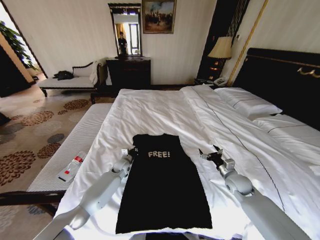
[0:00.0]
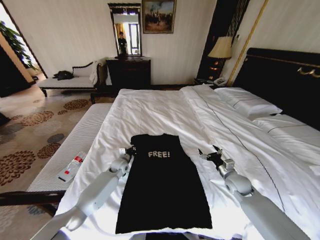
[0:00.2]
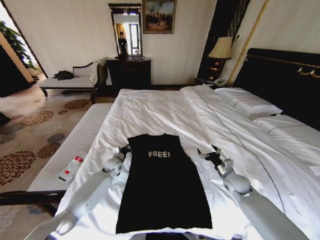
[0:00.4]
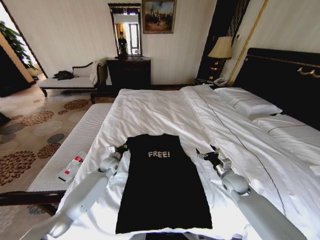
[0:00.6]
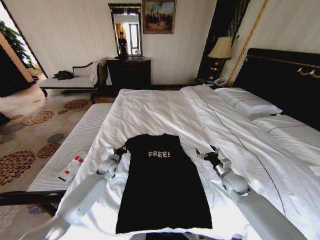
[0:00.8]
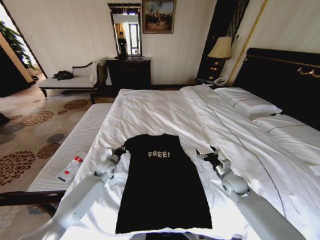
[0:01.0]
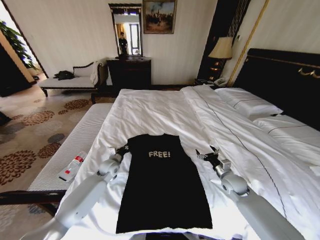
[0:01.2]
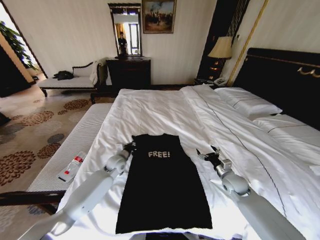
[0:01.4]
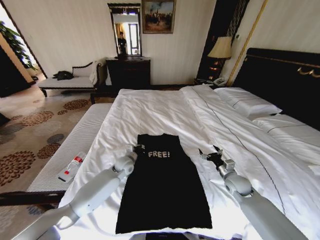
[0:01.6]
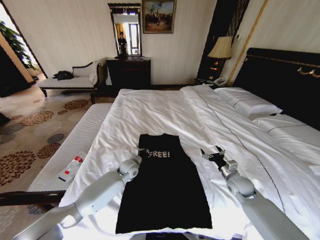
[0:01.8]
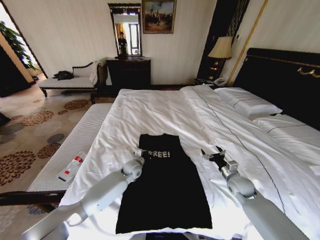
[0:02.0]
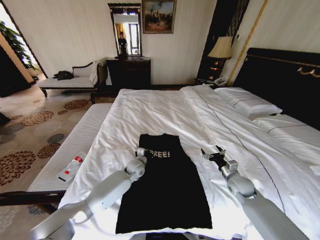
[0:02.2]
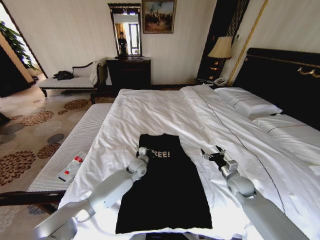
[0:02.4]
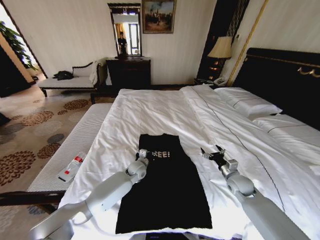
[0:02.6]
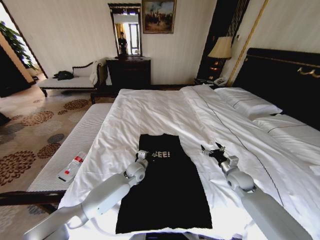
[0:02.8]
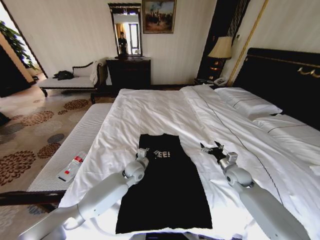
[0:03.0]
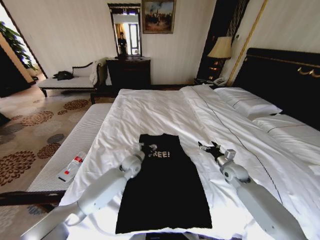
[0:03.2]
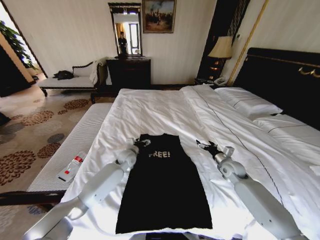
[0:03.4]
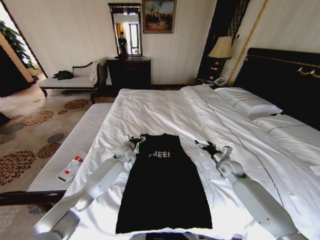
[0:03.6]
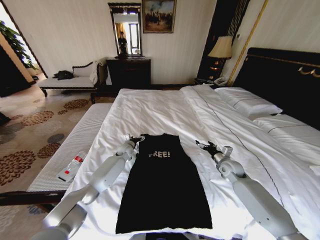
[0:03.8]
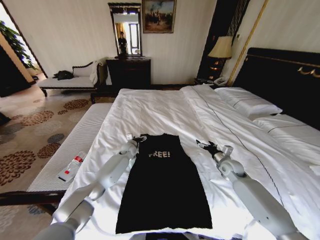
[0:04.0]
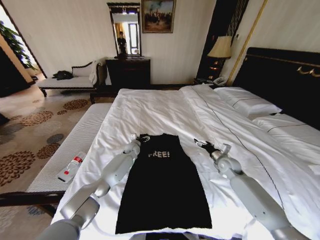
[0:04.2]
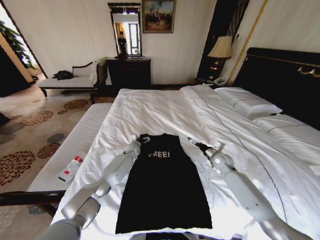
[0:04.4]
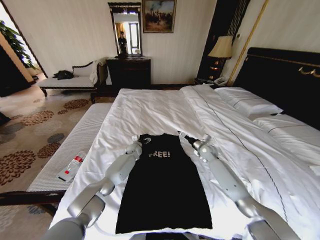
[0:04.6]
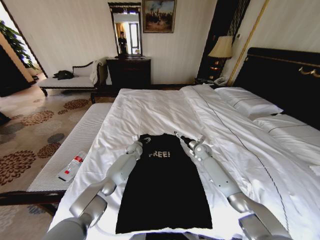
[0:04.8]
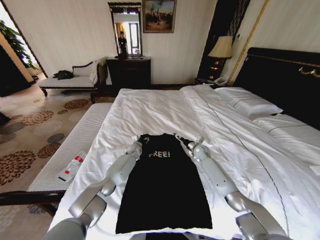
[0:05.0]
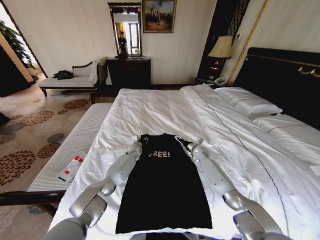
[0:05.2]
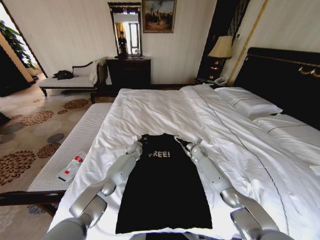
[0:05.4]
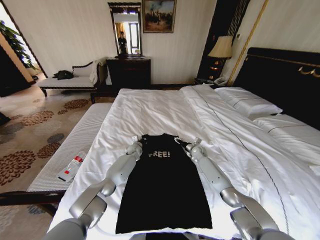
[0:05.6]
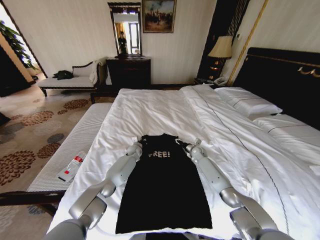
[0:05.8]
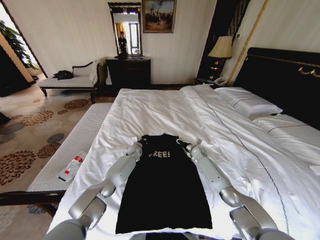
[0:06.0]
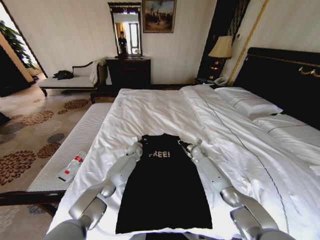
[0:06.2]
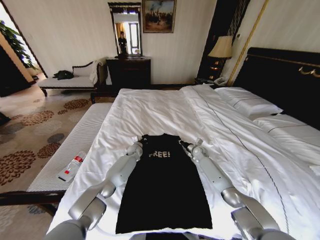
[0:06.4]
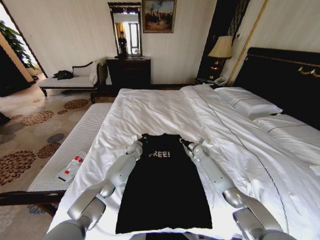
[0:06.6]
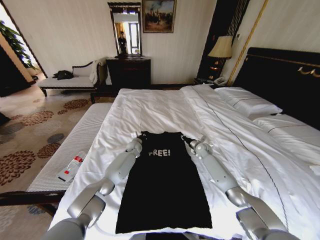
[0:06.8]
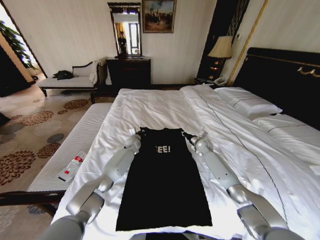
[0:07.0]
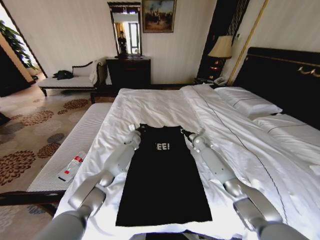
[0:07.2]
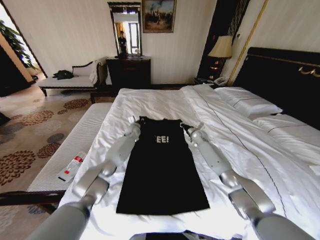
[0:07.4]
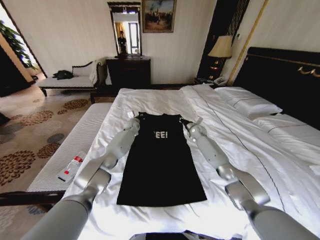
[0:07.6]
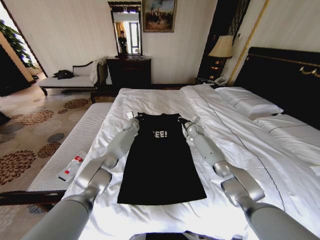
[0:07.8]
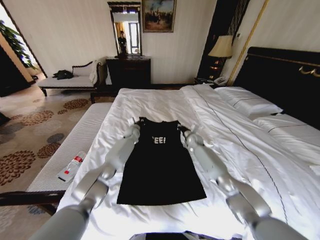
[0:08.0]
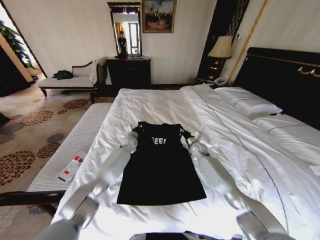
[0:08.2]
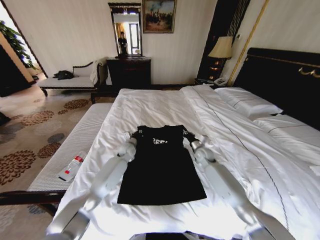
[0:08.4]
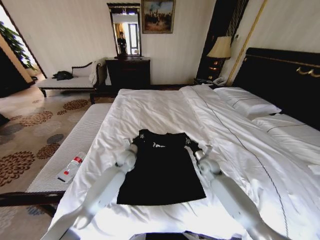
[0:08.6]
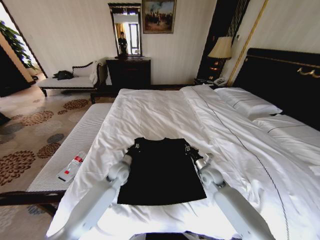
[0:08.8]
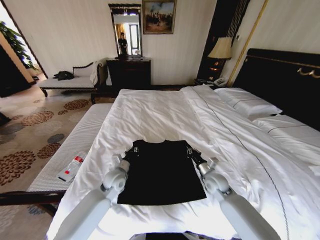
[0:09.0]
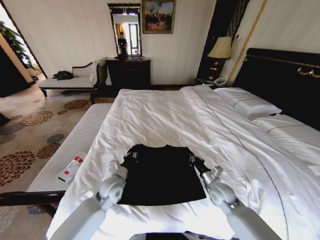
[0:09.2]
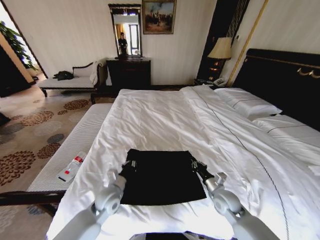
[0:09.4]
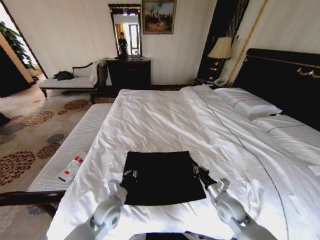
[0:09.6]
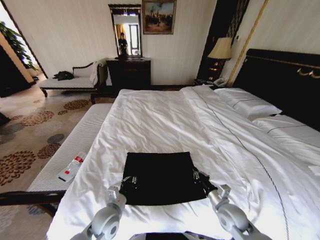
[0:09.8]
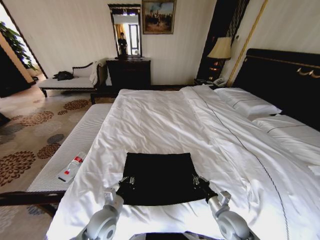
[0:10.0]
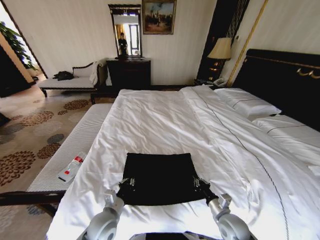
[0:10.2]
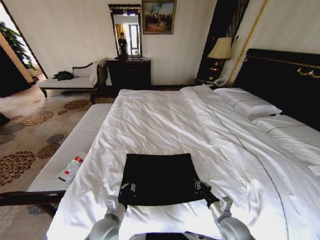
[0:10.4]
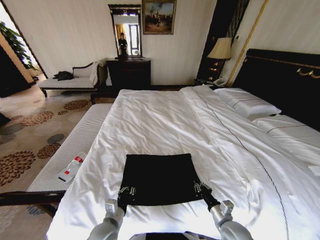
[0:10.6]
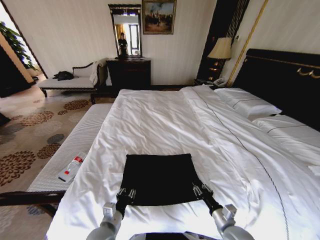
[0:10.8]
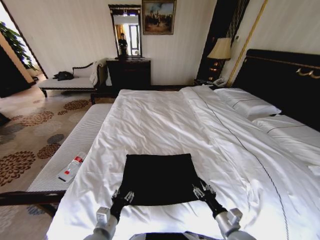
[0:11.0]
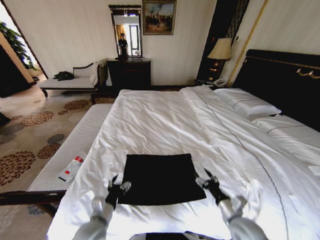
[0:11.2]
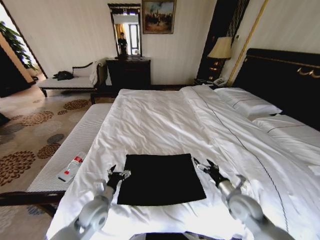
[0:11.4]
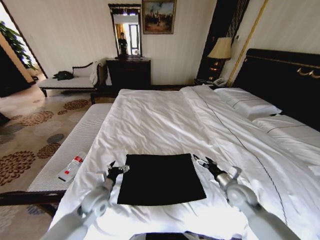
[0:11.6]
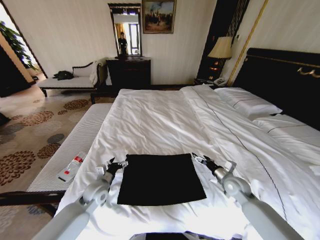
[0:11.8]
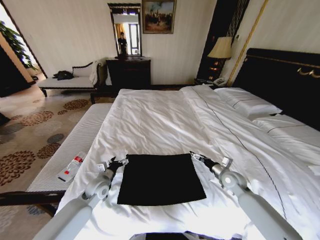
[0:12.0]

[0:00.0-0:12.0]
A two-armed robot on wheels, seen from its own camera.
Task of the whole recording: Fold the clothes on the bed.
0:00.0 to 0:01.6: The left gripper goes about 5 cm upward, and travels to the left and back again, about 5 cm each way.
0:01.6 to 0:03.0: The left gripper goes some 5 cm to the right, and opens up.
0:03.0 to 0:04.4: The right gripper moves forward, approximately 10 cm; the left gripper travels forward by roughly 15 cm, and opens.
0:04.4 to 0:06.0: The left gripper closes its fingers; the right gripper travels forward, downward and to the left by some 10 cm, and closes its fingers.
0:06.0 to 0:07.6: The two grippers go approximately 15 cm upward and forward. The right gripper closes up.
0:07.6 to 0:09.0: Both grippers travel together backward, some 30 cm.
0:09.0 to 0:10.4: Both grippers travel together backward, some 15 cm.
0:10.4 to 0:12.0: The right gripper goes some 20 cm forward and to the right, and opens up. The left gripper is displaced forward and to the left by some 15 cm, and opens its fingers.

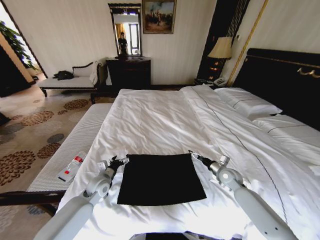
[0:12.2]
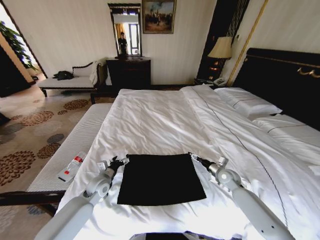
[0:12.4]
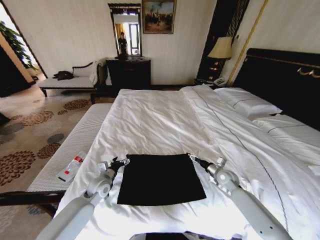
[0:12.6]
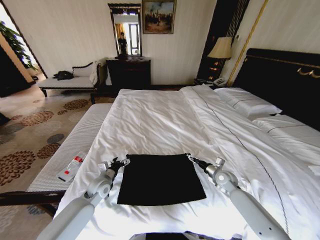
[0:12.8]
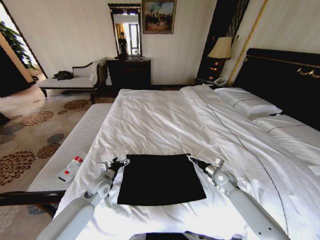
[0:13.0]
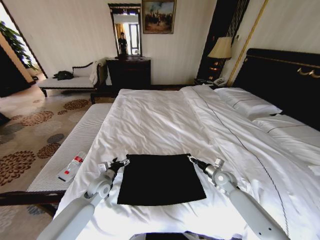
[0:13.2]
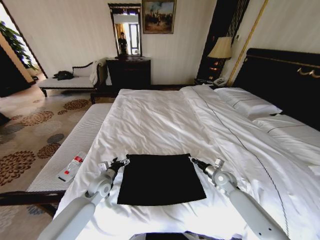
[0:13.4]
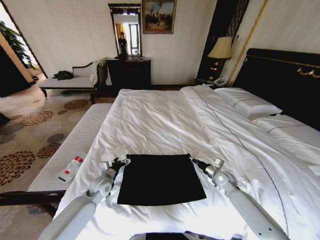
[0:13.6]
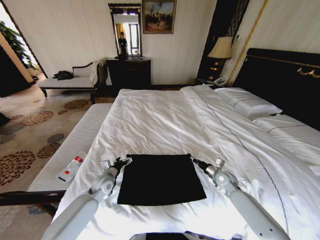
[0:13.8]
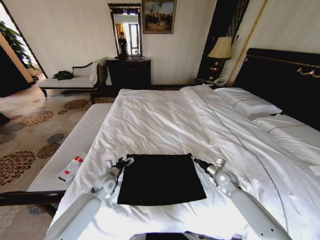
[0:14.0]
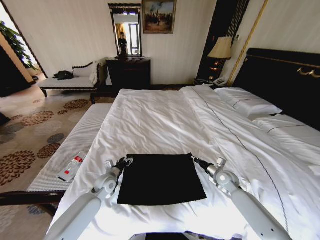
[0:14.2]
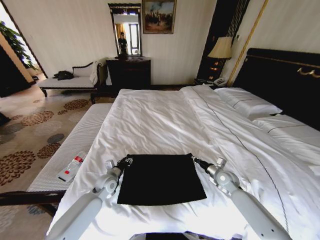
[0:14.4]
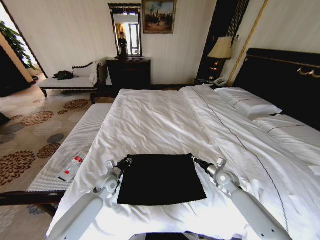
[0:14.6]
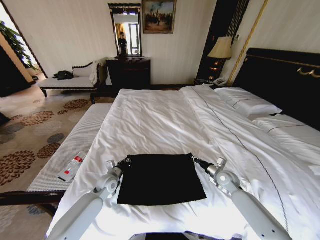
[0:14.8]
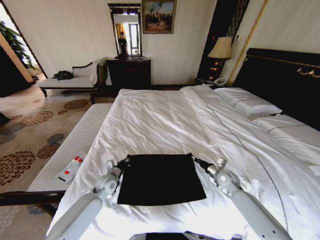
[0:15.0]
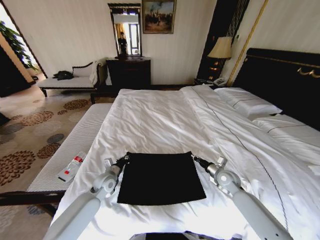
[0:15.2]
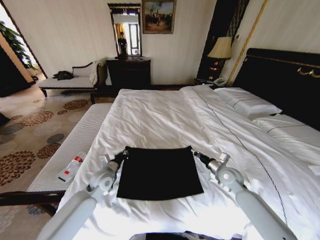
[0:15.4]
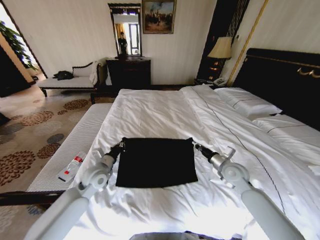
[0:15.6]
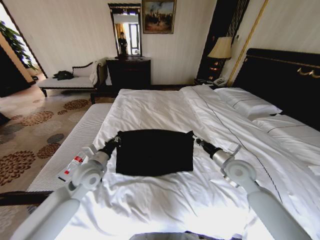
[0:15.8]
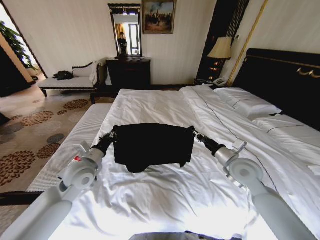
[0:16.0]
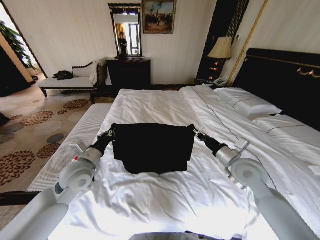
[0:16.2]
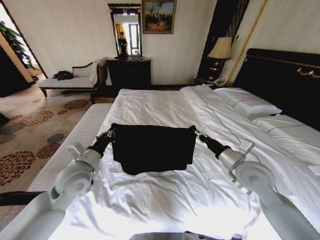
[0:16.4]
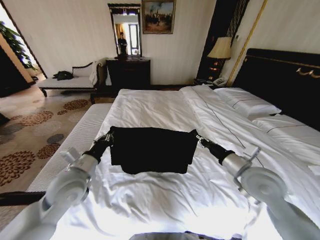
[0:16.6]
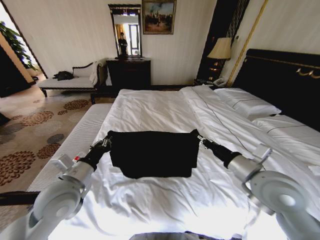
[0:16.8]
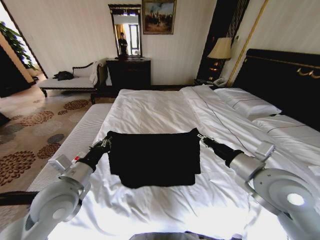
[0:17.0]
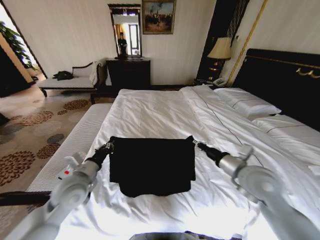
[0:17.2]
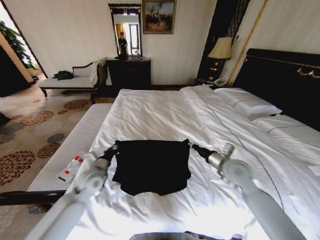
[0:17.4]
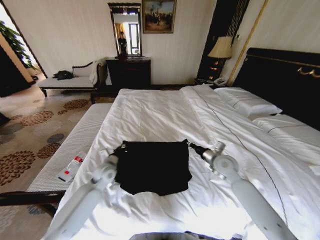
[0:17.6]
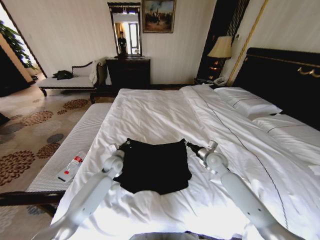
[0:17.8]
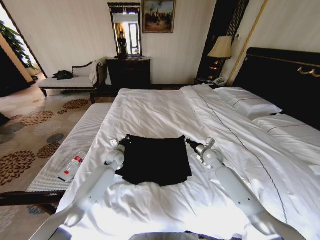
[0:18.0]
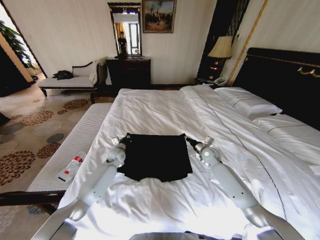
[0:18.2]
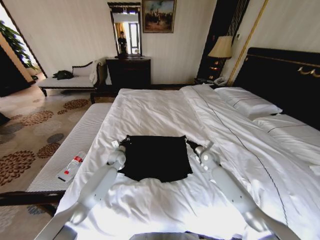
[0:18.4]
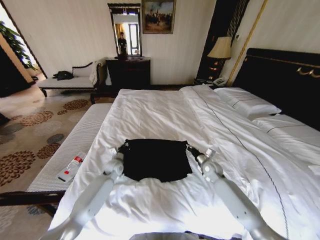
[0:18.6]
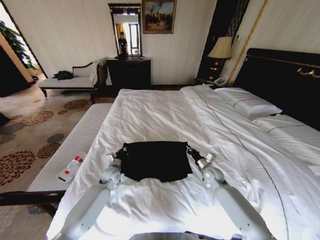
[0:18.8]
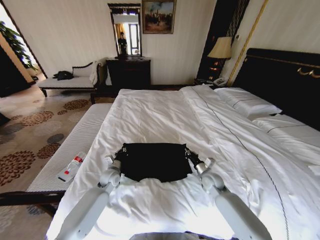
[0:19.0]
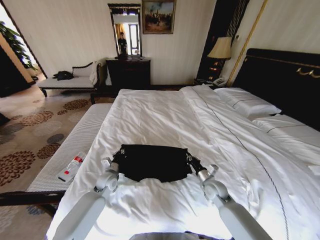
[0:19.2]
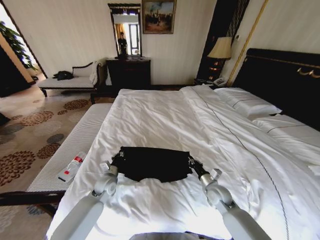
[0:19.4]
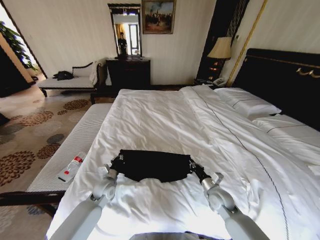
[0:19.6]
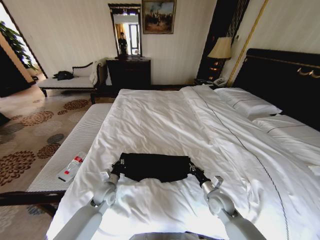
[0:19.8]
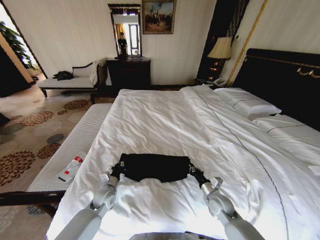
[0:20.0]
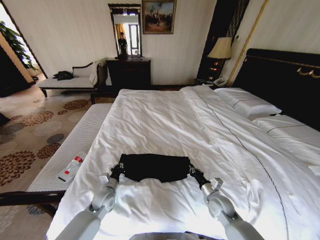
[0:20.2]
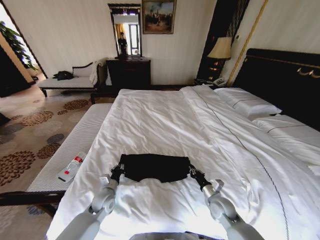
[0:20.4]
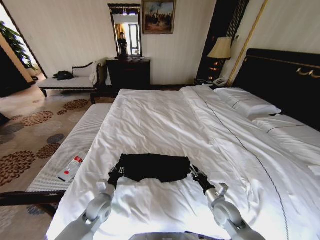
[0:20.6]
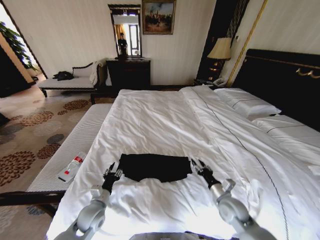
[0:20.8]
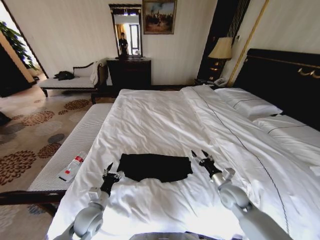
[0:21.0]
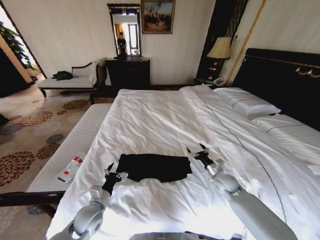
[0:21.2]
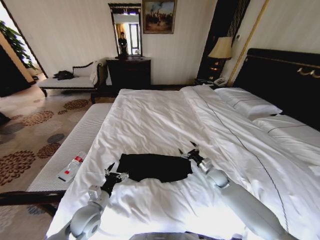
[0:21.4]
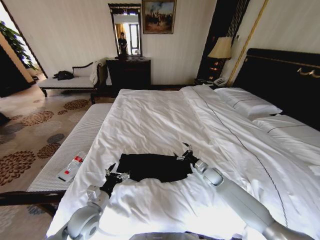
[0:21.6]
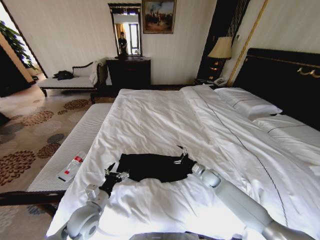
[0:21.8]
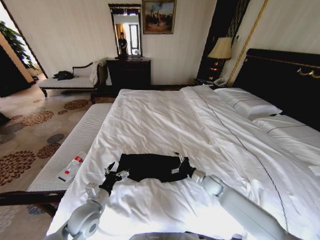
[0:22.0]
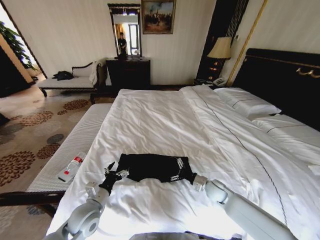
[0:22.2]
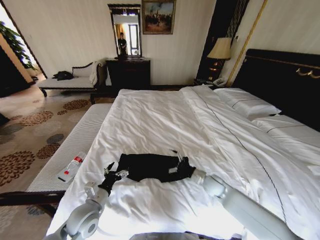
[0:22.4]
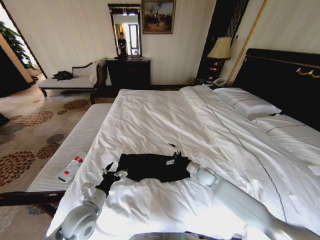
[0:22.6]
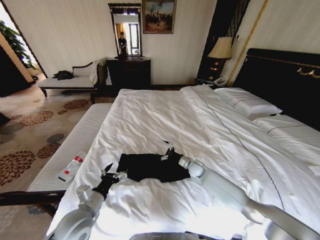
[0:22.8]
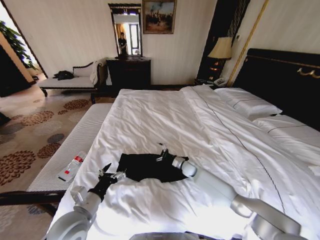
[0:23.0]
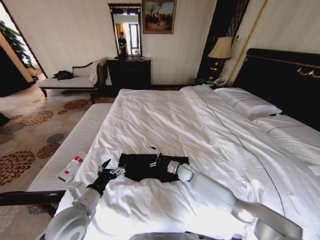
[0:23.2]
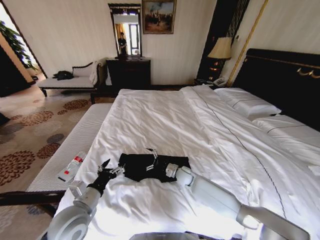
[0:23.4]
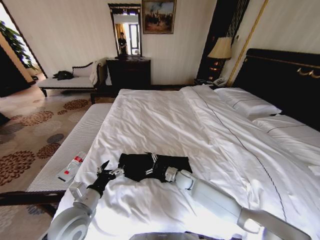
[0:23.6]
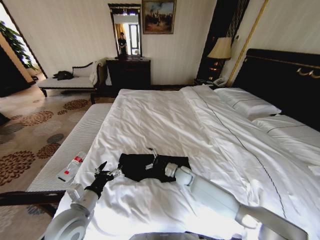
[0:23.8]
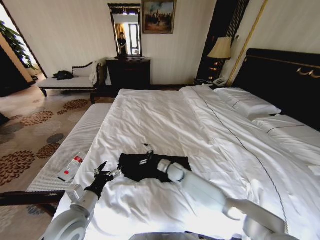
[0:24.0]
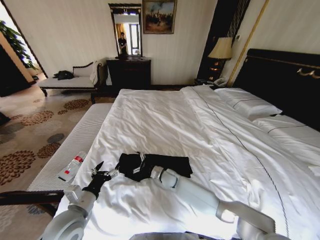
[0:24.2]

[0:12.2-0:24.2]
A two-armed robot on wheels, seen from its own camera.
Task of the whole recording: Fold the clothes on the bed.
0:12.2 to 0:13.8: The right gripper closes up.
0:13.8 to 0:15.2: The left gripper closes its fingers.
0:15.2 to 0:16.6: The grippers both shift upward and backward by some 20 cm.
0:16.6 to 0:18.2: The grippers both shift forward and downward by some 30 cm.
0:18.2 to 0:19.8: Both grippers move backward, approximately 20 cm.
0:19.8 to 0:21.2: The left gripper moves backward, roughly 10 cm, and opens up, while the right gripper goes about 5 cm forward, and opens its fingers.
0:21.2 to 0:22.6: The right gripper swings forward and backward, approximately 10 cm each way, with 2 reversals. Meanwhile the left gripper moves upward, roughly 5 cm.
0:22.6 to 0:24.2: The right gripper goes roughly 20 cm to the left, while the left gripper changes place by approximately 5 cm.